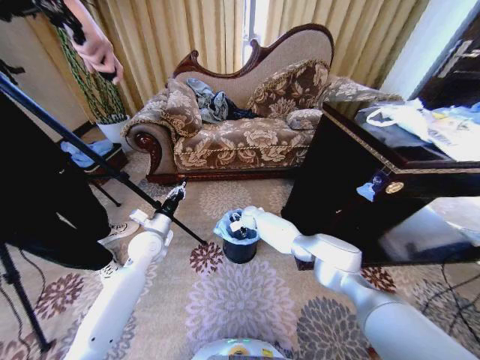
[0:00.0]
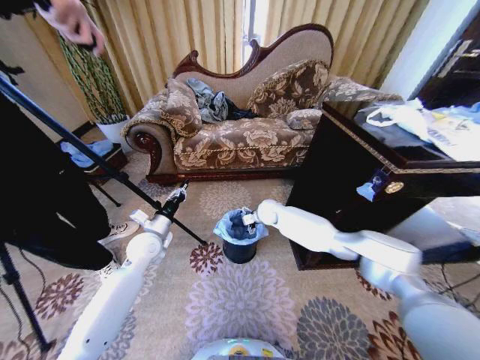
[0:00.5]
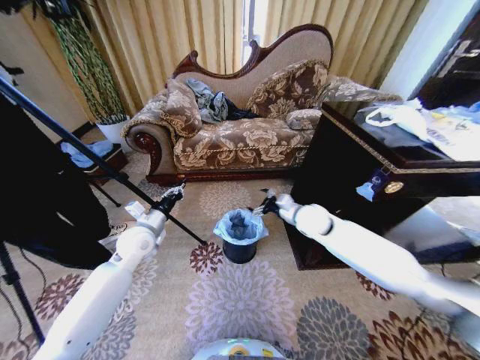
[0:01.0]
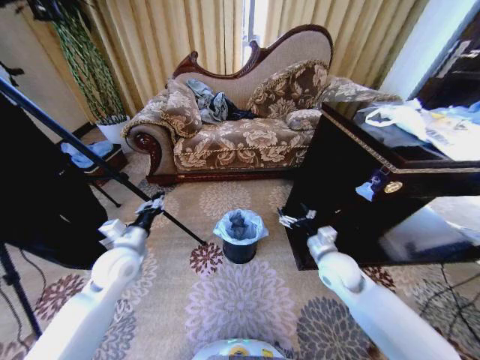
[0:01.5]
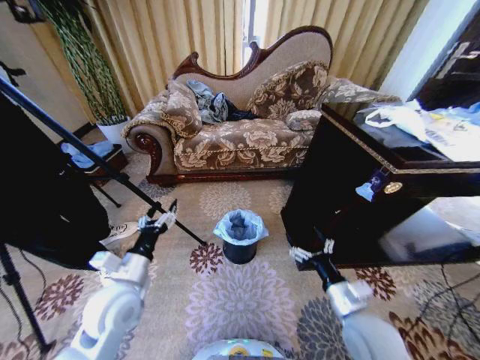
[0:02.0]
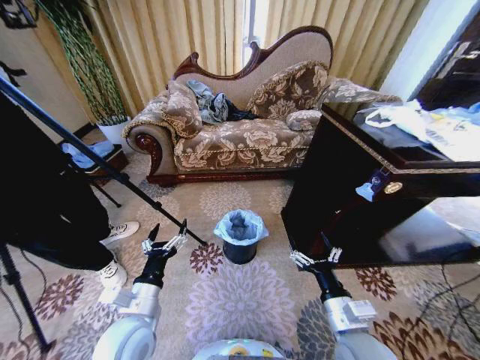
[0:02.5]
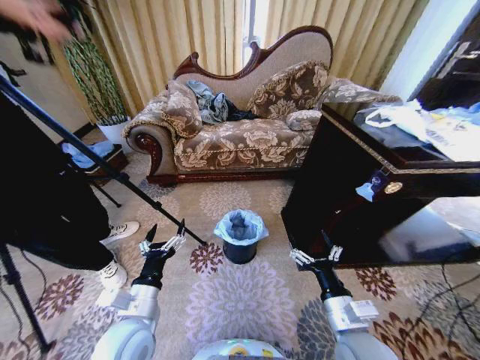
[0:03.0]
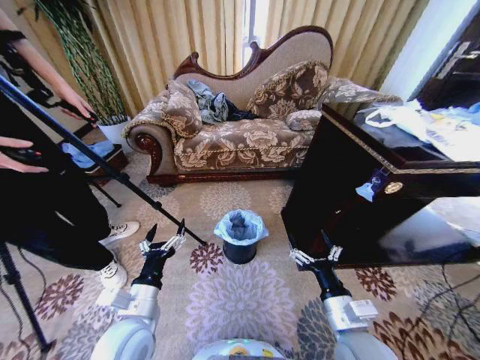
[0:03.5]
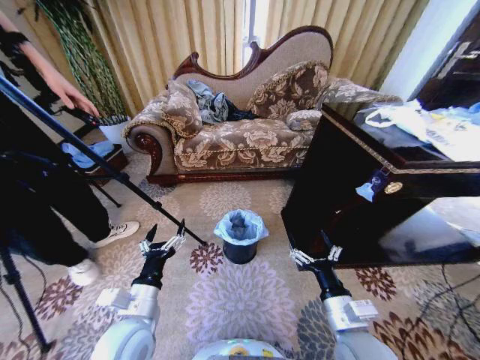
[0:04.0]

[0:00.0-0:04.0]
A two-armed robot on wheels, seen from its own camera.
Task of the whole recording: Place a garbage bag over the trash bin.
0:00.0 to 0:02.0: The right gripper shifts roughly 50 cm backward and to the right. The left gripper heads backward, covering some 15 cm, and opens up.
0:02.0 to 0:04.0: The right gripper changes place by roughly 5 cm. The left gripper heads backward, covering about 5 cm.
